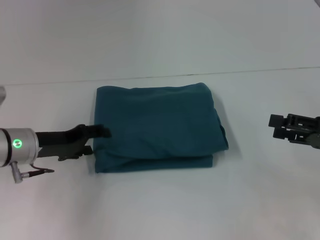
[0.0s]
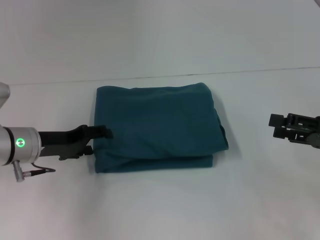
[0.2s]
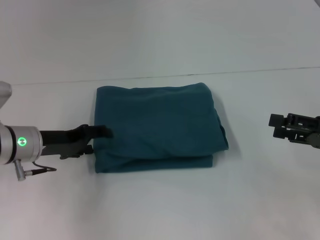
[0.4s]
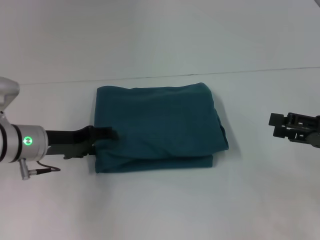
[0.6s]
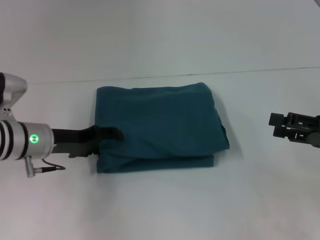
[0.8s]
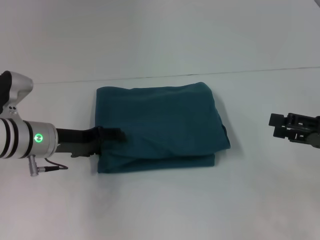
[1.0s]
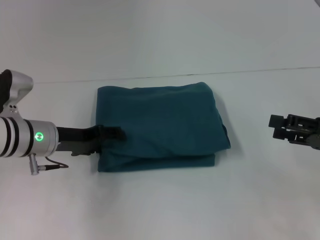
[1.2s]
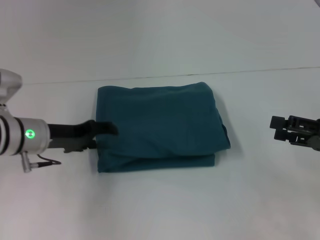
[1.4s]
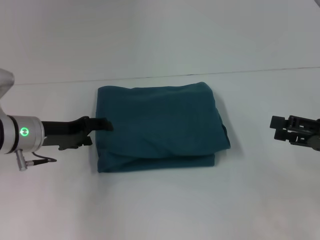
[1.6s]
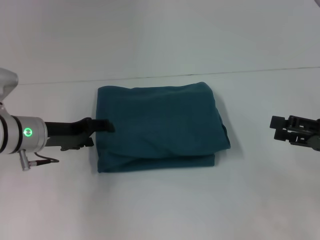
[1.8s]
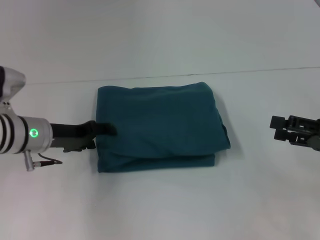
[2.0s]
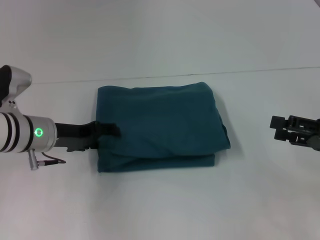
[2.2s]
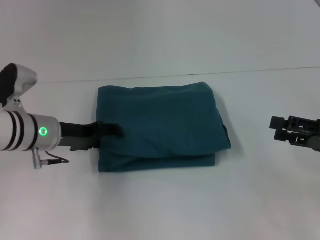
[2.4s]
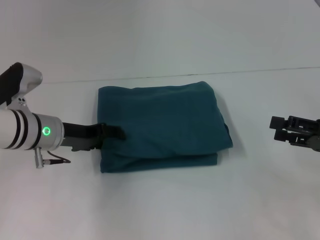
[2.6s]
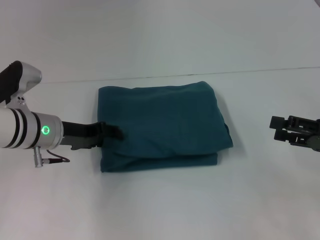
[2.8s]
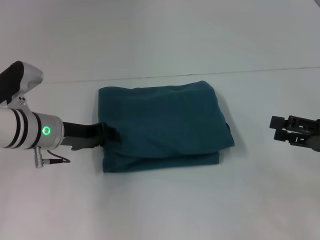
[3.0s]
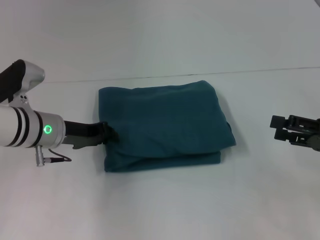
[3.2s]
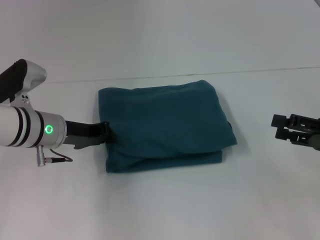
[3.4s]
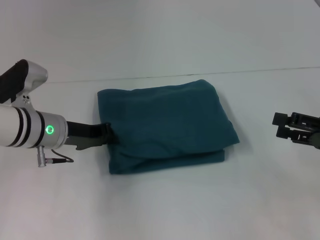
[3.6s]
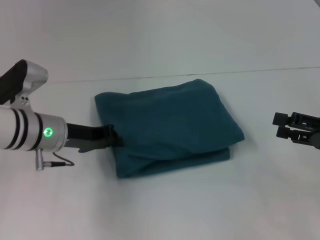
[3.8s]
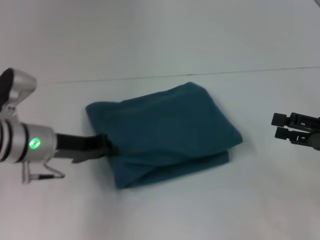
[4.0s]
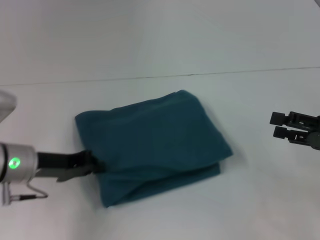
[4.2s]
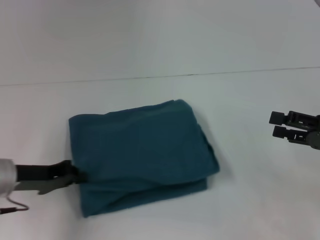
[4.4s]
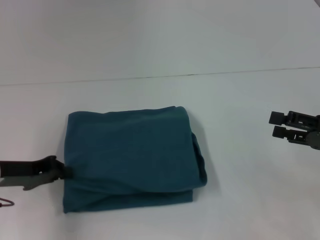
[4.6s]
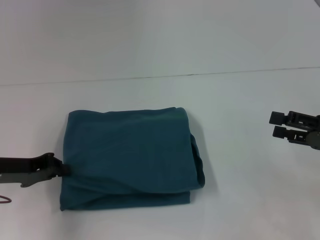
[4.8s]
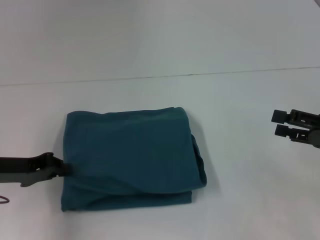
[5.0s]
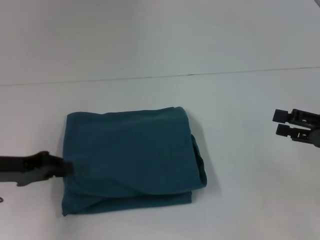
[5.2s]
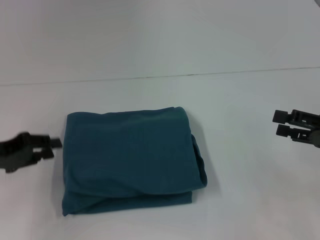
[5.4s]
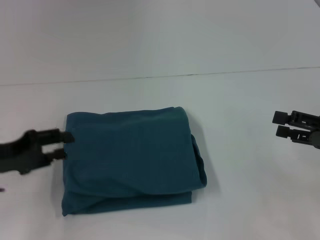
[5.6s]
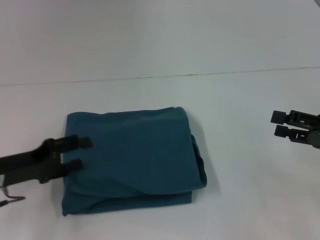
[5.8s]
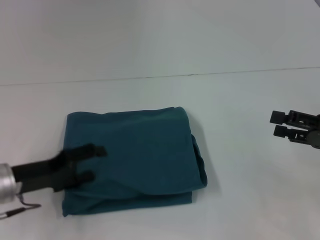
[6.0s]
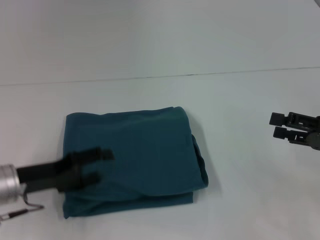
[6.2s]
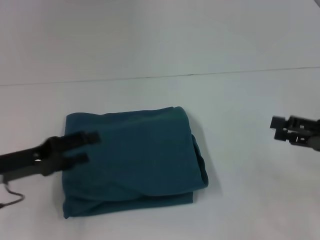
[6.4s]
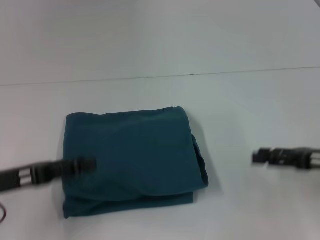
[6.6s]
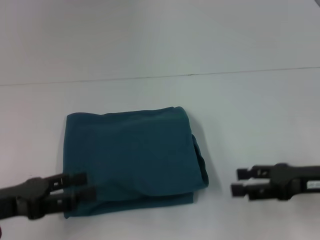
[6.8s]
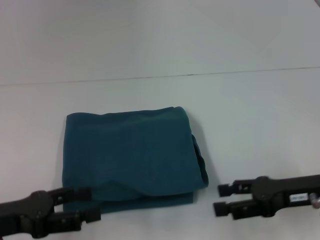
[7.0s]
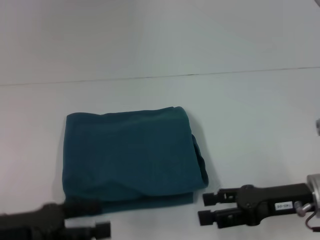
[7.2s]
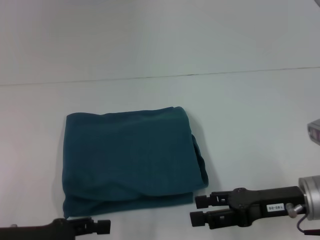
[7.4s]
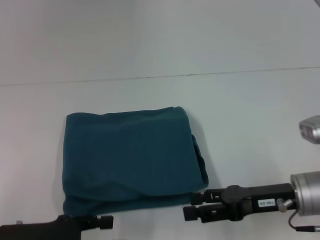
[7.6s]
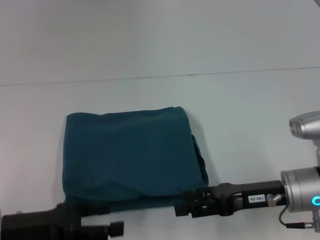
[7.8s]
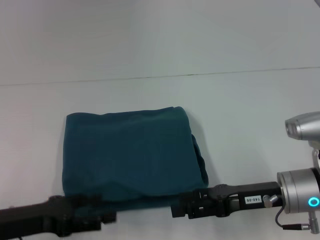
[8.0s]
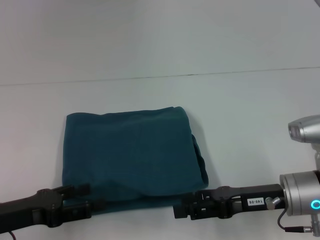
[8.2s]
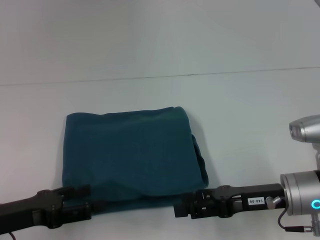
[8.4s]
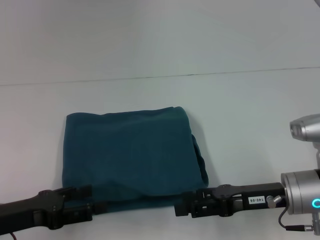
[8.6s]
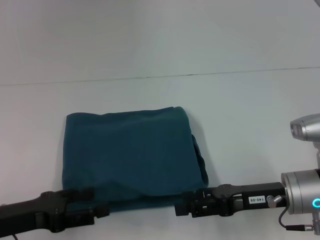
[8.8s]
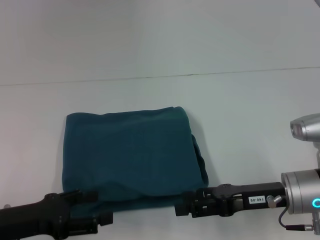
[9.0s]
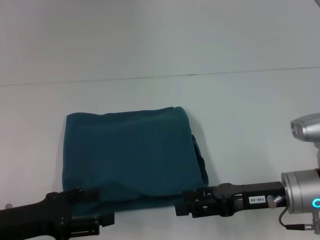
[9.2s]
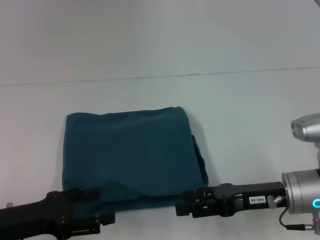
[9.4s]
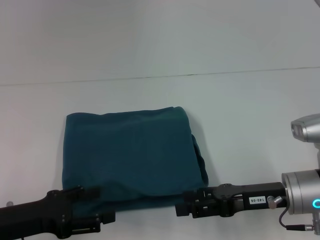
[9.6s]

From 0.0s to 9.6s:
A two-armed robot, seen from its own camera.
From 0.0s to 1.6s: The grippers make only small movements.
From 1.6s to 3.2s: The left gripper closes its fingers.
From 3.2s to 4.8s: The left gripper goes about 10 cm to the left and backward.
From 4.8s to 6.4s: The left gripper opens.
From 6.4s to 8.0s: The right gripper travels to the left by approximately 15 cm. The left gripper shifts approximately 5 cm backward.
From 8.0s to 9.6s: There are only small adjustments of the grippers.
